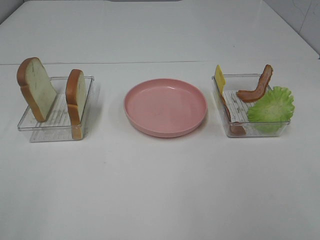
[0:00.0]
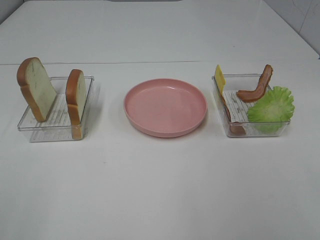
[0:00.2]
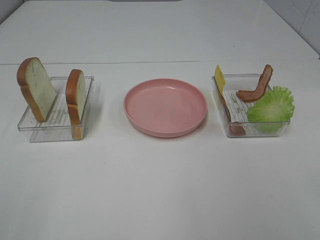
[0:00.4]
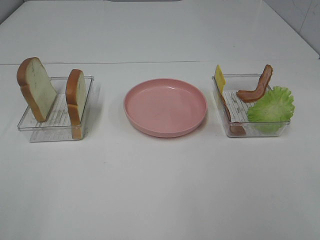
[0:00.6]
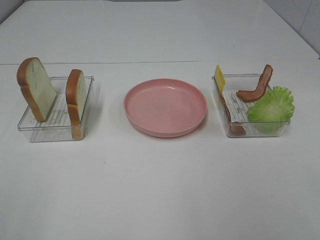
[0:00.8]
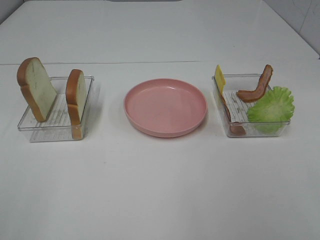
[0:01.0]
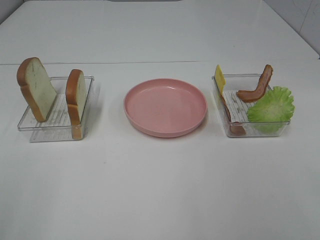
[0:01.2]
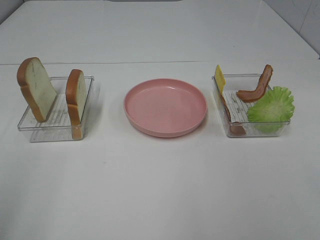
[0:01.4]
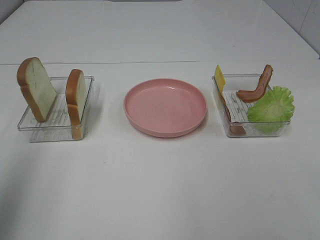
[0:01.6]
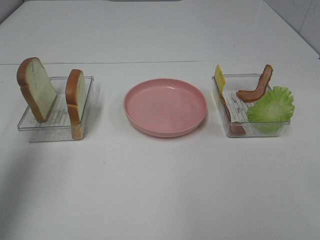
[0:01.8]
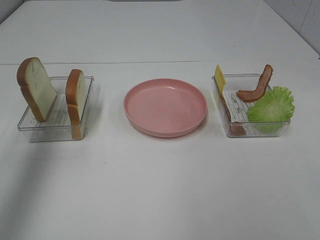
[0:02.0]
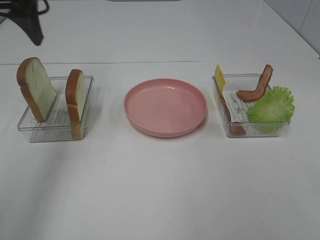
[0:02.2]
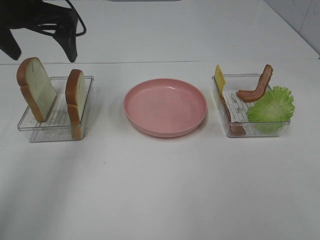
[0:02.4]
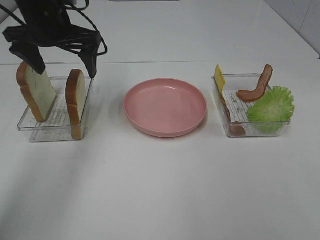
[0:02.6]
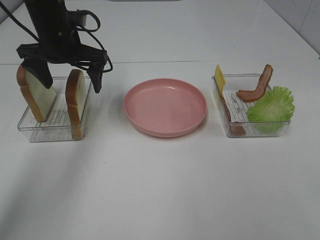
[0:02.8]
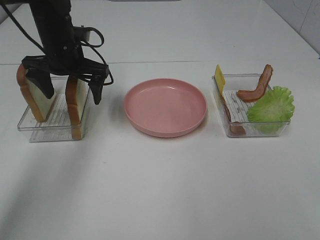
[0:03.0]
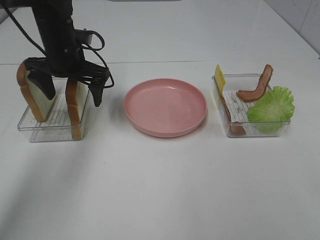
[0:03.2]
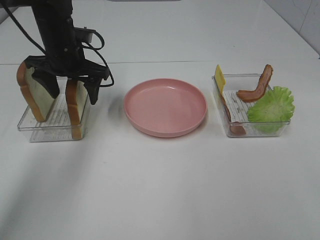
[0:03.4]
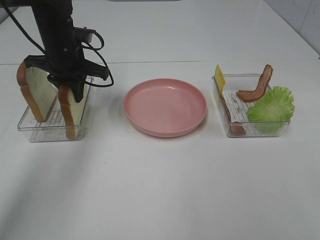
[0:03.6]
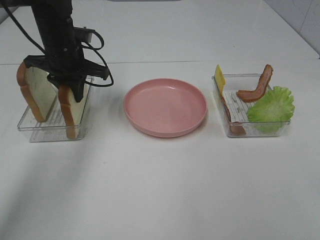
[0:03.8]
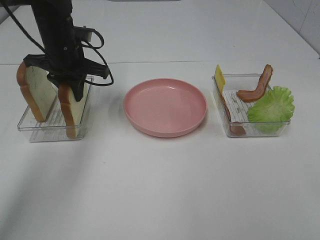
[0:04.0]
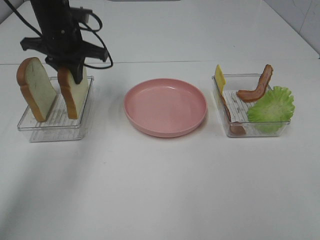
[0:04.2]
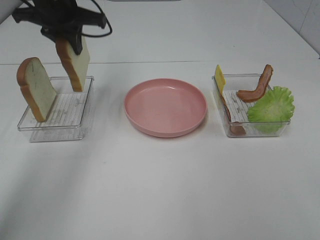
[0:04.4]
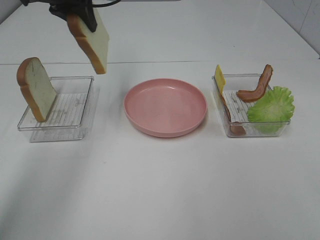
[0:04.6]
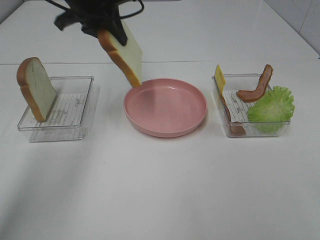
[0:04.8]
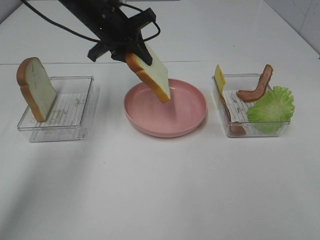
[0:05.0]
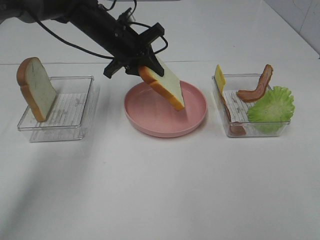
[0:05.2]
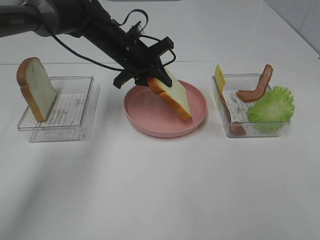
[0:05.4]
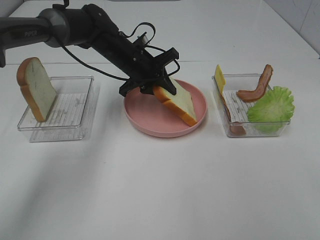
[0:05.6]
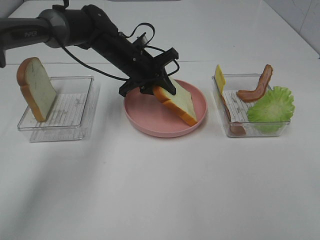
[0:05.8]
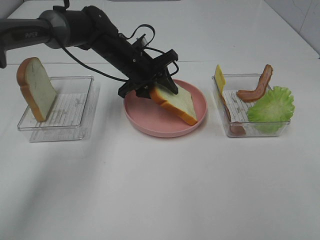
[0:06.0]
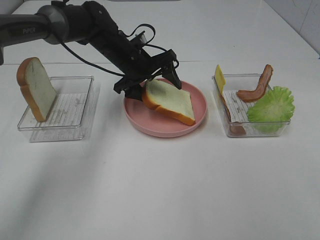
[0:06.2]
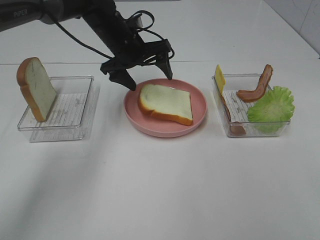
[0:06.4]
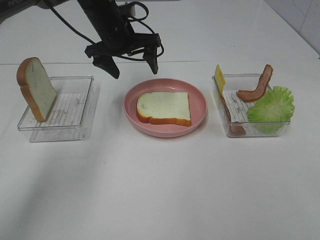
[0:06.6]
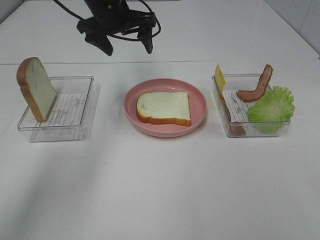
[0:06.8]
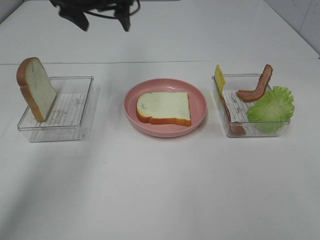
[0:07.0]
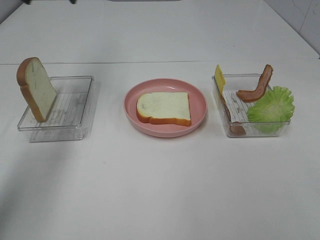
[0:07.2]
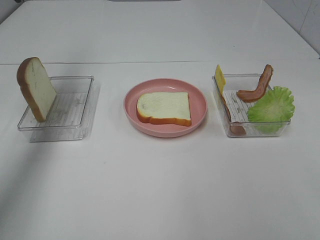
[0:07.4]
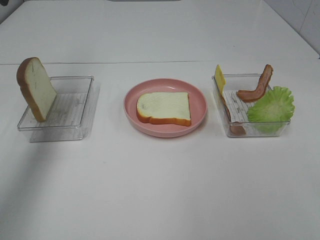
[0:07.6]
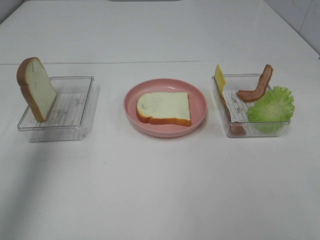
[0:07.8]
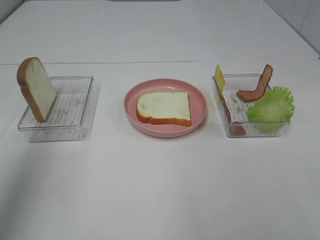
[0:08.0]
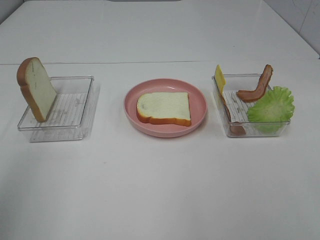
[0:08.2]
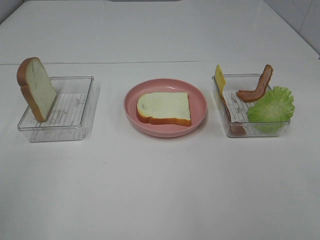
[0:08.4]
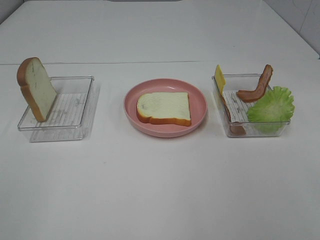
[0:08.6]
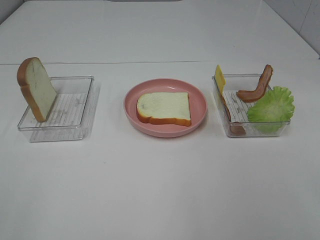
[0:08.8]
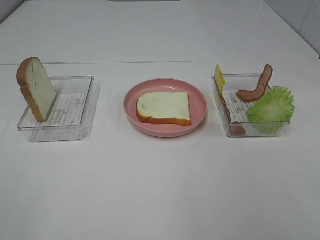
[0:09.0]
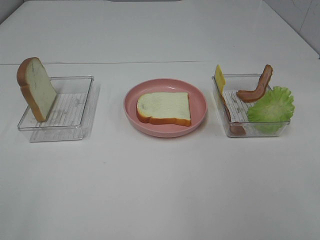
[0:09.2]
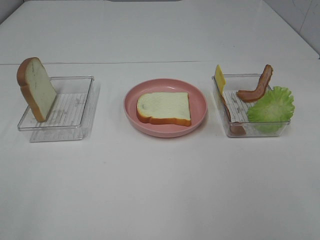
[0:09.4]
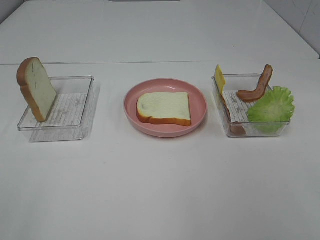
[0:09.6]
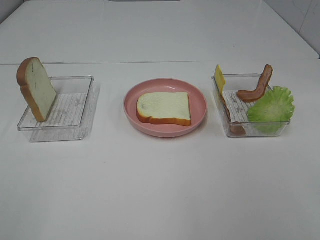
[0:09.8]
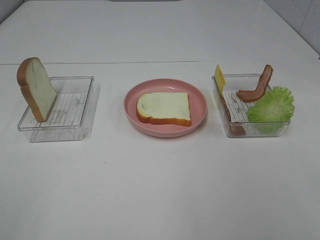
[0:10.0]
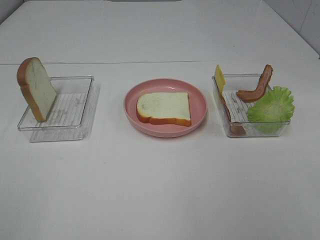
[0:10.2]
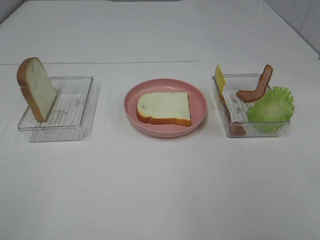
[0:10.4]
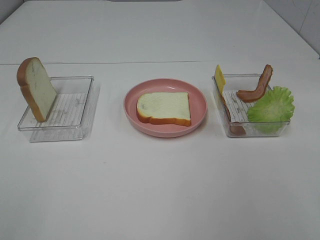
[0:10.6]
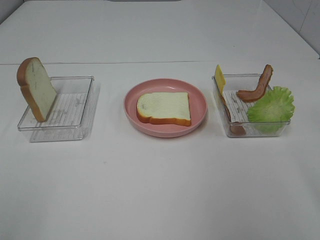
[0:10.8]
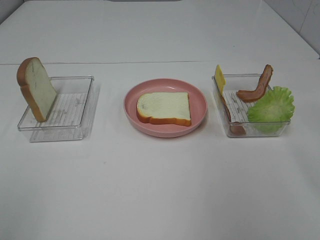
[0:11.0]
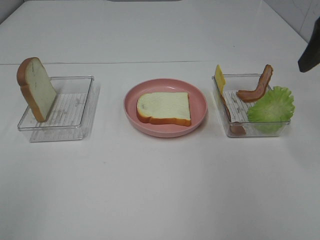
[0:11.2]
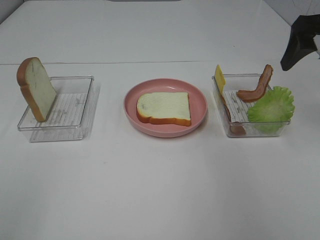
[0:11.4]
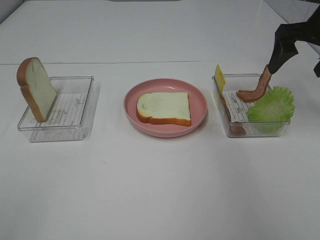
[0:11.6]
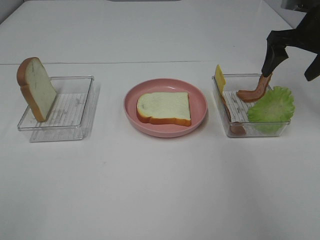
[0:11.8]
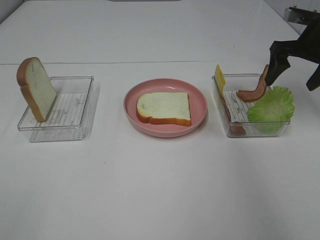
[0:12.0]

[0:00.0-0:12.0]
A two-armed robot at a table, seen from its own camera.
Task of the whole recording: Make sandwiches.
Step, 0:00.0 to 0:03.8: Left hand:grab the bread slice.
Step, 0:04.0 to 0:06.4: Left hand:place the bread slice on the plate.
0:00.0 to 0:01.6: The left gripper travels forward and upward by some 20 cm.
0:01.6 to 0:03.0: The left gripper goes about 35 cm forward, downward and to the right.
0:03.0 to 0:04.4: The left gripper is displaced upward by approximately 10 cm, and closes its fingers.
0:04.4 to 0:06.0: The left gripper shifts about 20 cm downward and to the right, and opens up.
0:06.0 to 0:07.6: The left gripper shifts approximately 35 cm upward and to the left, and opens up.
0:07.6 to 0:09.0: The left gripper moves backward, about 40 cm.
0:10.4 to 0:12.0: The right gripper shifts roughly 40 cm forward.

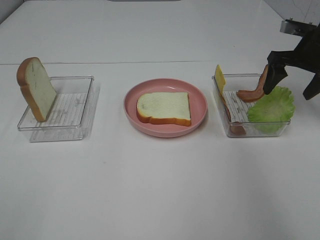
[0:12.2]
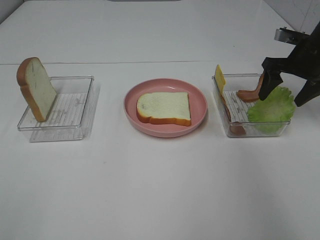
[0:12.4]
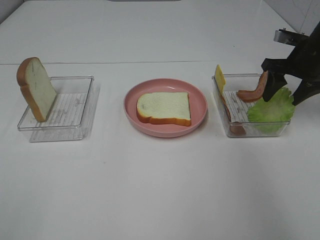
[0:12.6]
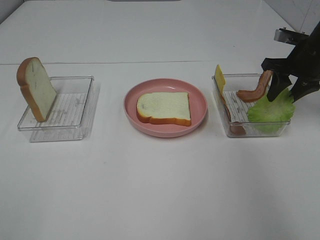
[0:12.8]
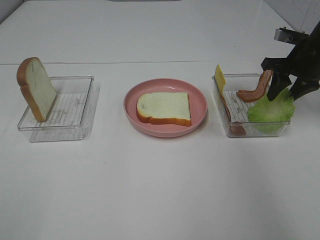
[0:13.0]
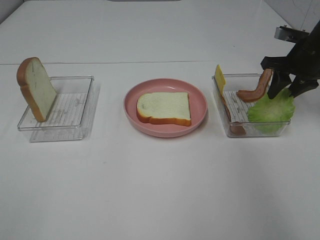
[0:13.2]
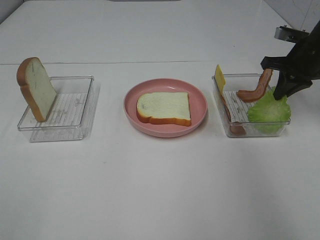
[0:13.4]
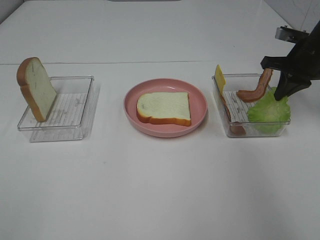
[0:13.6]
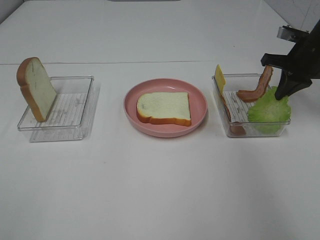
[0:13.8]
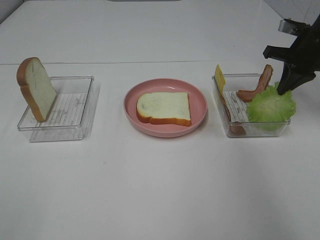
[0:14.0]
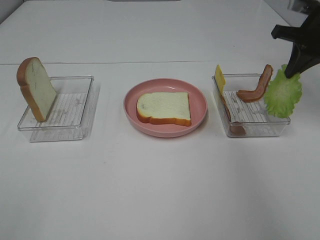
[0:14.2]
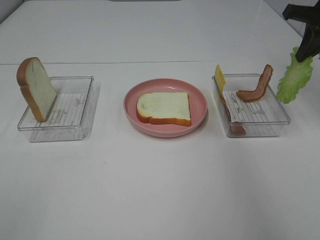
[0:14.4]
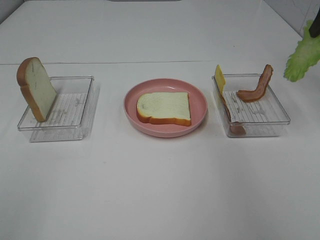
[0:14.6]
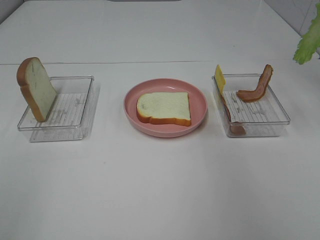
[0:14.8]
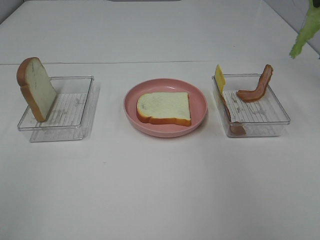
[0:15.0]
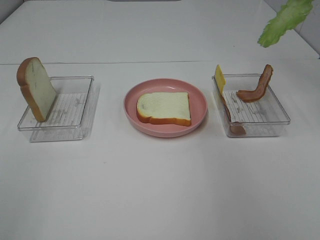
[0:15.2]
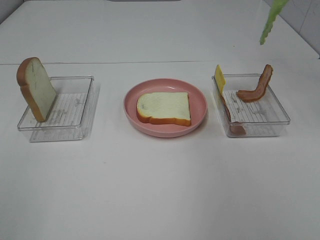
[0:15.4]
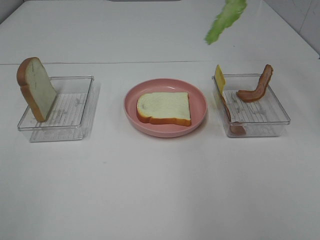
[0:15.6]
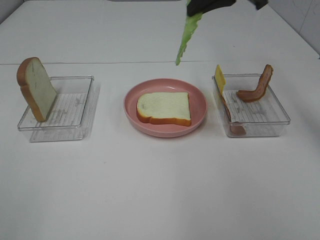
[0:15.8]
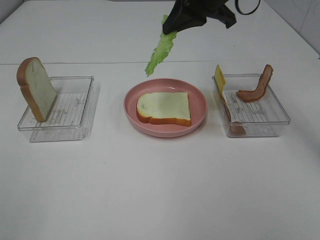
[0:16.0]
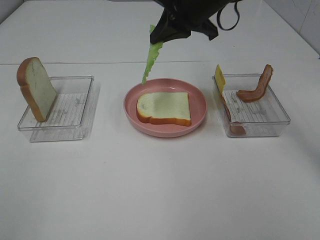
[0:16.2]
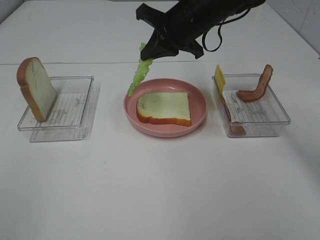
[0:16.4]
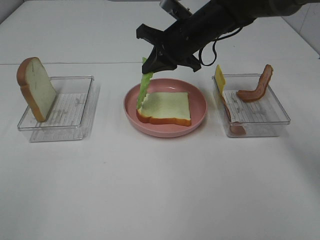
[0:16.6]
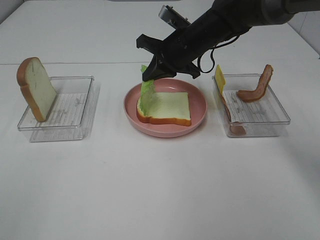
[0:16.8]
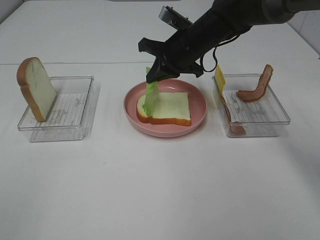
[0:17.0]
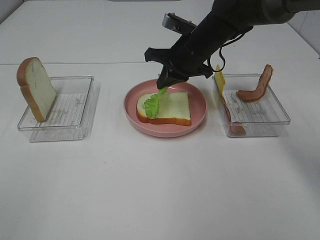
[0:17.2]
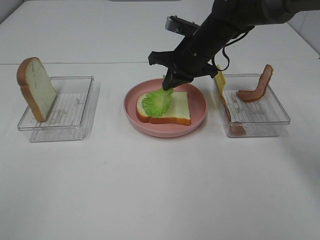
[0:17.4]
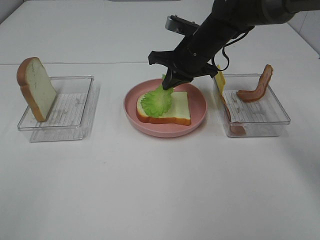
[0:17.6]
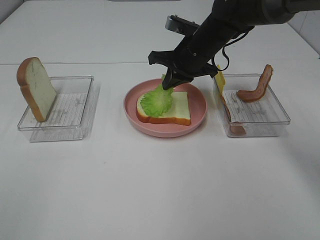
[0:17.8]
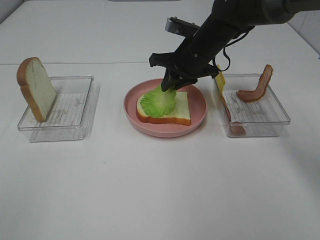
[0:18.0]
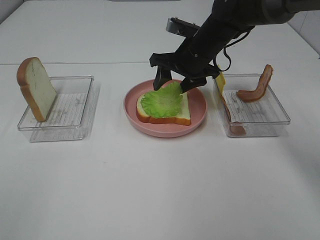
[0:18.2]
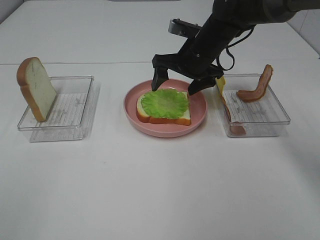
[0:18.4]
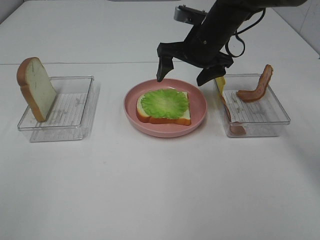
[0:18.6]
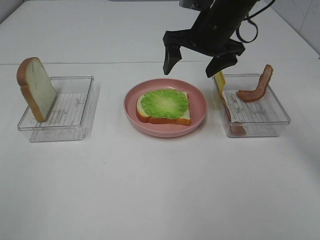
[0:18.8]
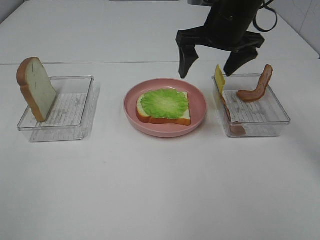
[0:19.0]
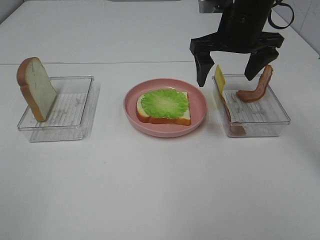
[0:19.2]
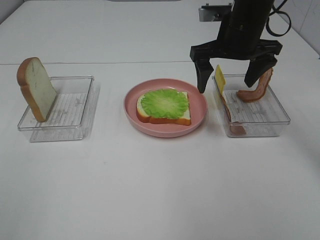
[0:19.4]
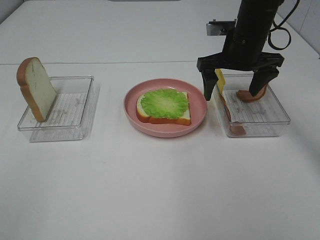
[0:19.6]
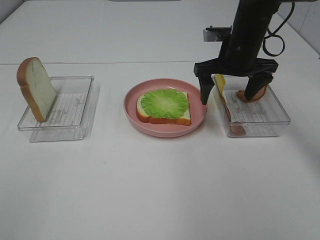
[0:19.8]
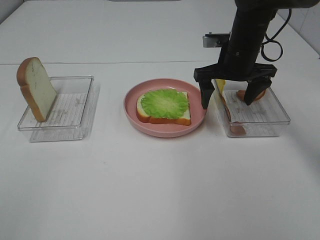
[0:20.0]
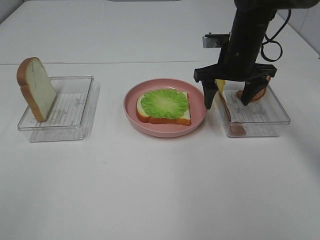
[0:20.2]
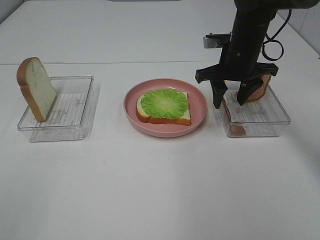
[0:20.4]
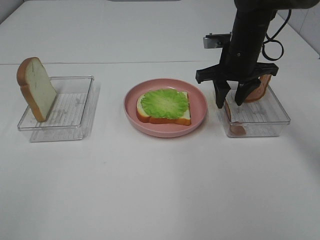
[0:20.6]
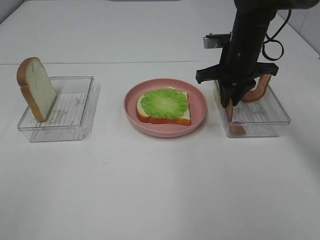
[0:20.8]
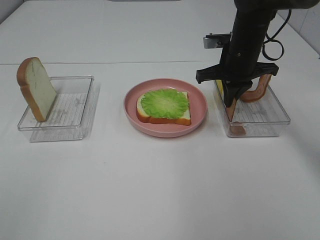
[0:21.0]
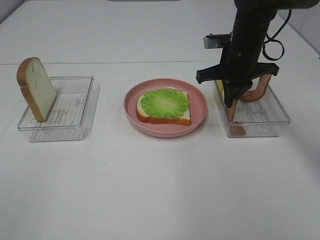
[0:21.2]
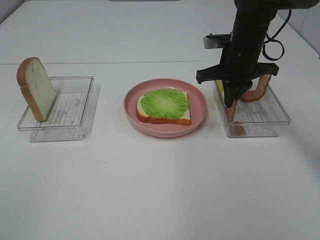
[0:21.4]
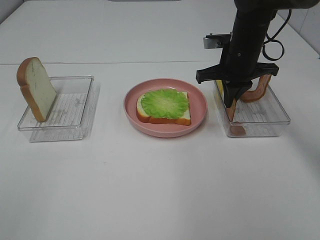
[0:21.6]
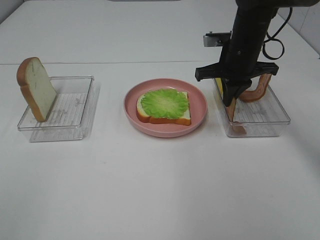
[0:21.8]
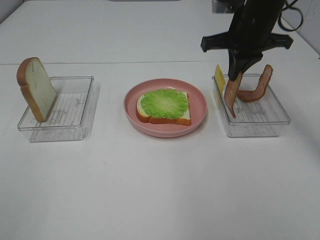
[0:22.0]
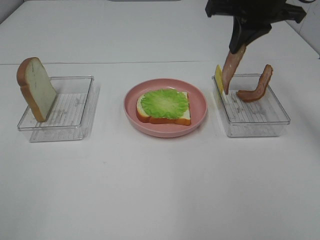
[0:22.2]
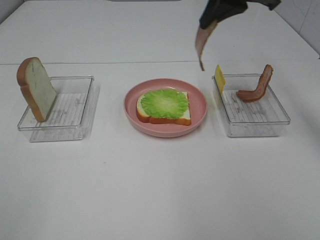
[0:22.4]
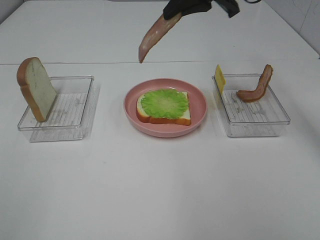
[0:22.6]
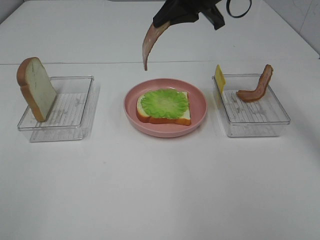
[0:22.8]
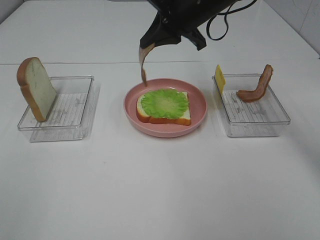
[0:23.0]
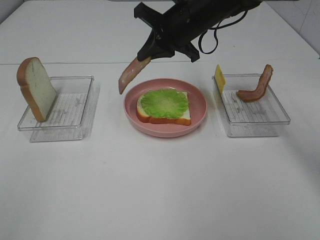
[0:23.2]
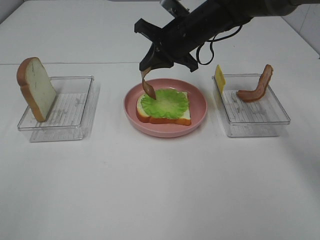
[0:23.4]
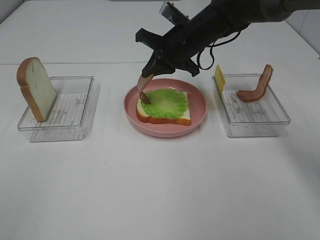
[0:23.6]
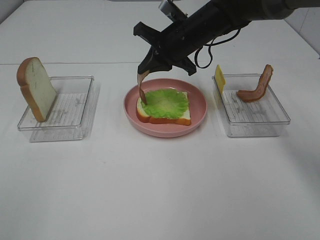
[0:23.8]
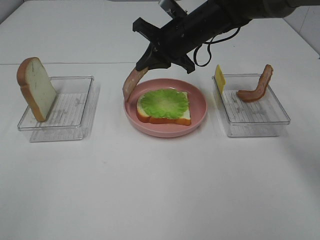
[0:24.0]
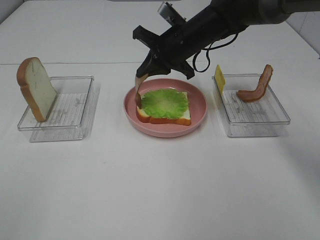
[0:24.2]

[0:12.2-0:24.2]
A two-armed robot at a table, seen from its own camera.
Task of the whole recording: Make sandwiches.
Step, 0:13.8 to 0:19.0: Right hand:place the lettuce slice on the bread slice.
Step, 0:19.2 to 0:21.4: Right hand:grab the bacon.
0:12.2 to 0:13.8: The right gripper closes its fingers.
0:13.8 to 0:15.2: The right gripper goes about 20 cm upward.
0:15.2 to 0:16.6: The right gripper moves to the left and downward, roughly 30 cm.
0:16.6 to 0:18.2: The right gripper opens up.
0:18.2 to 0:19.8: The right gripper heads to the right, covering some 5 cm, and travels upward and back again, roughly 10 cm each way.
0:19.8 to 0:21.2: The right gripper closes.
0:21.2 to 0:22.6: The right gripper is displaced upward by about 15 cm.
0:22.6 to 0:24.2: The right gripper is displaced downward by some 15 cm.
